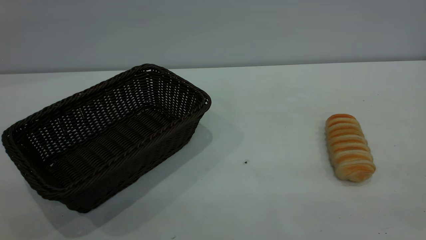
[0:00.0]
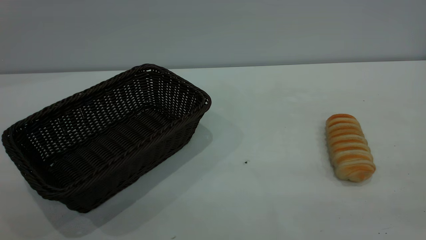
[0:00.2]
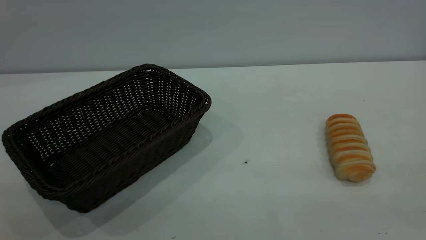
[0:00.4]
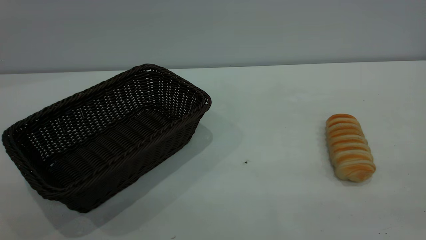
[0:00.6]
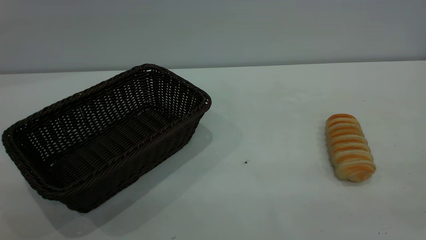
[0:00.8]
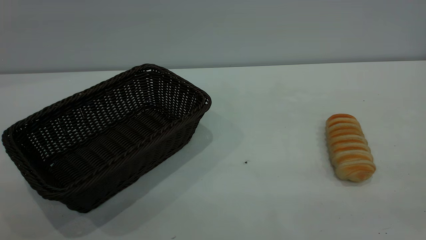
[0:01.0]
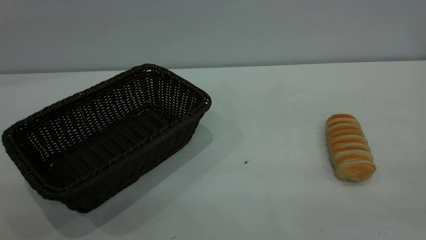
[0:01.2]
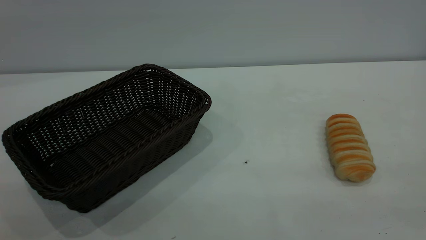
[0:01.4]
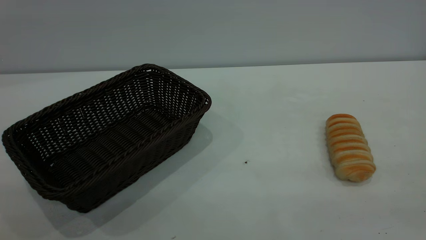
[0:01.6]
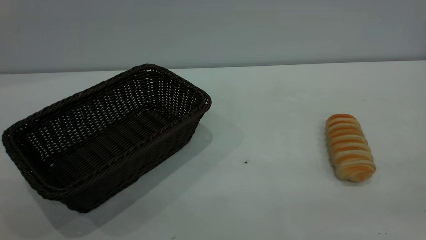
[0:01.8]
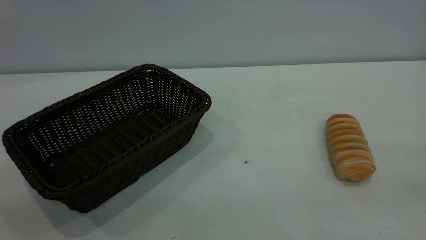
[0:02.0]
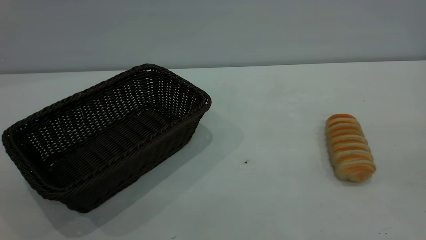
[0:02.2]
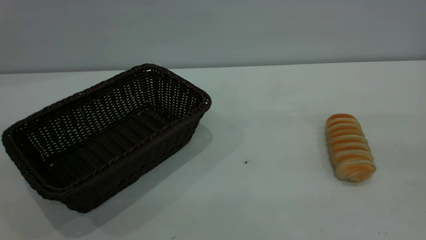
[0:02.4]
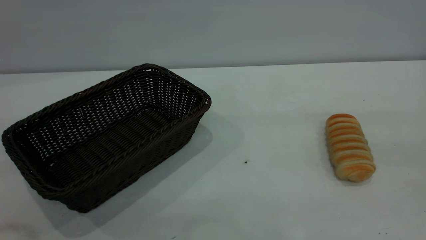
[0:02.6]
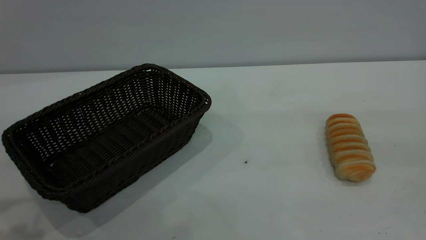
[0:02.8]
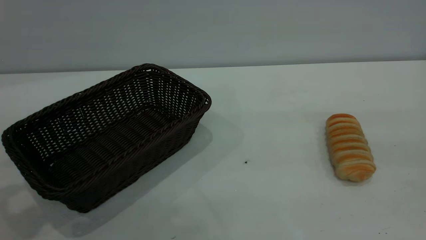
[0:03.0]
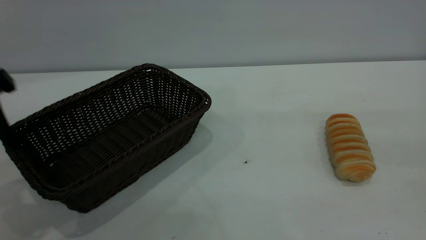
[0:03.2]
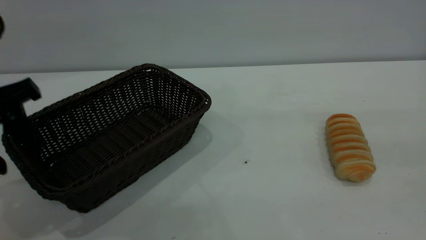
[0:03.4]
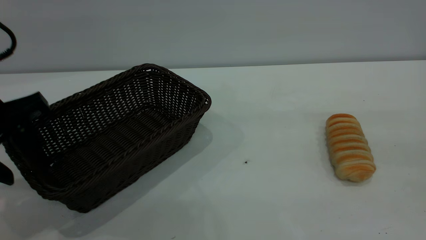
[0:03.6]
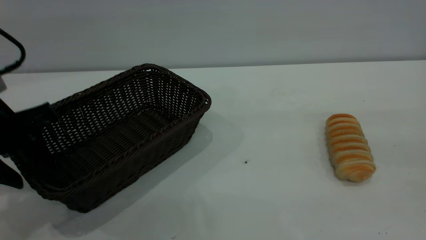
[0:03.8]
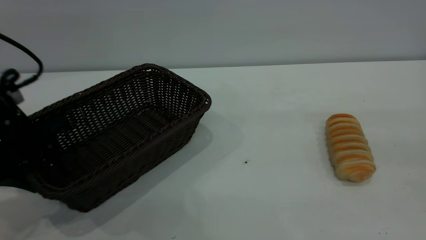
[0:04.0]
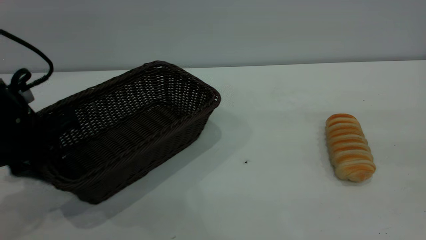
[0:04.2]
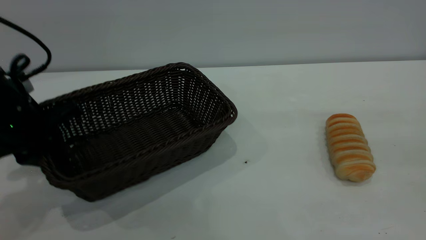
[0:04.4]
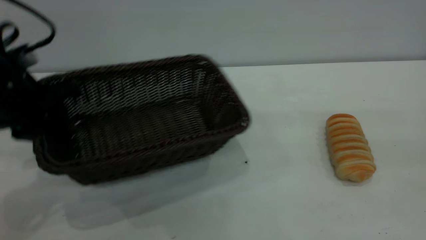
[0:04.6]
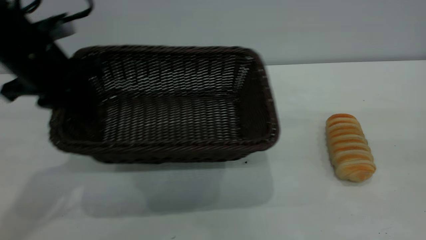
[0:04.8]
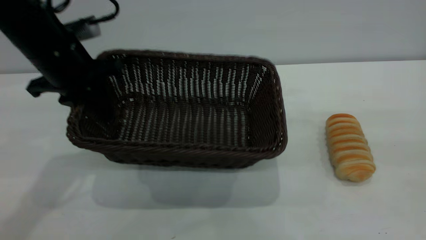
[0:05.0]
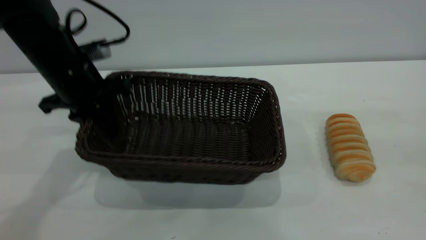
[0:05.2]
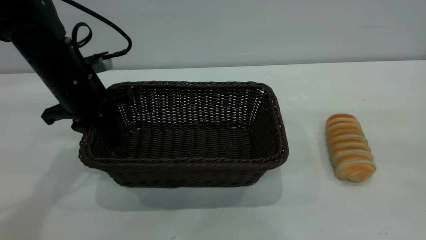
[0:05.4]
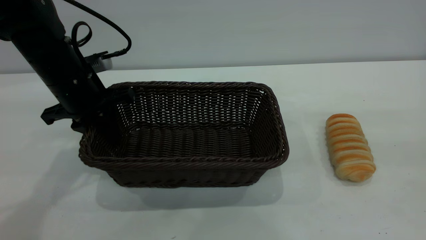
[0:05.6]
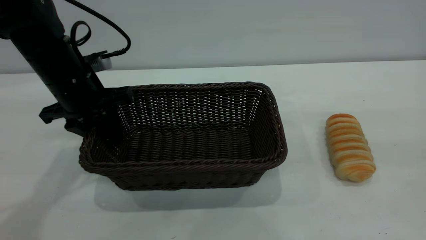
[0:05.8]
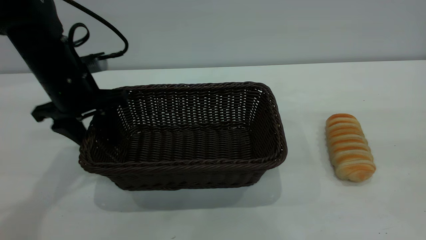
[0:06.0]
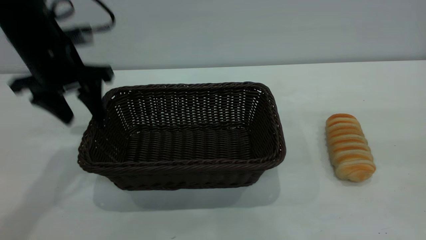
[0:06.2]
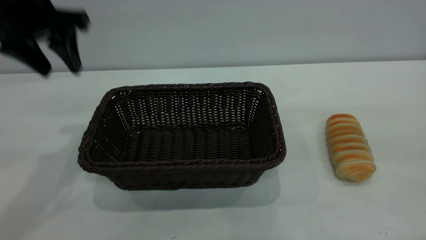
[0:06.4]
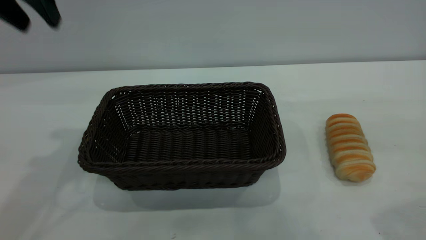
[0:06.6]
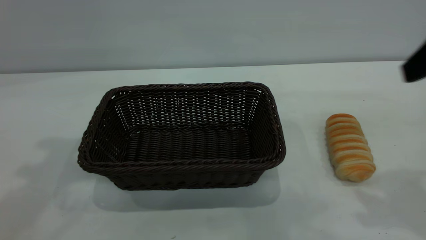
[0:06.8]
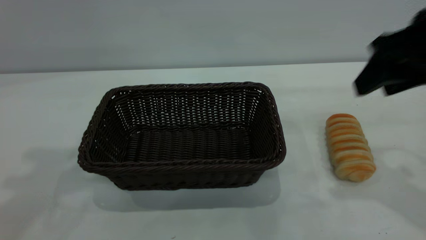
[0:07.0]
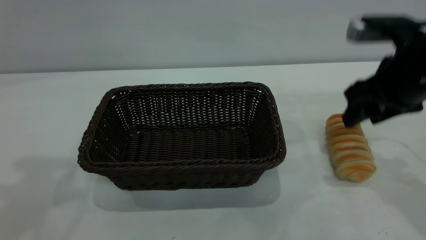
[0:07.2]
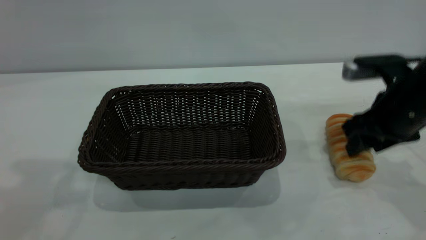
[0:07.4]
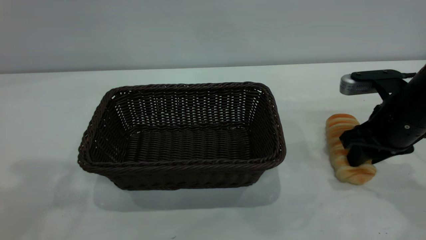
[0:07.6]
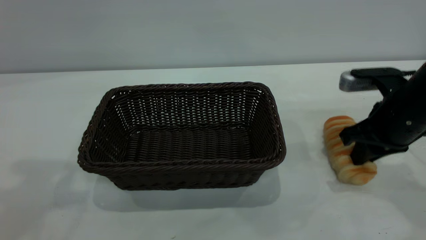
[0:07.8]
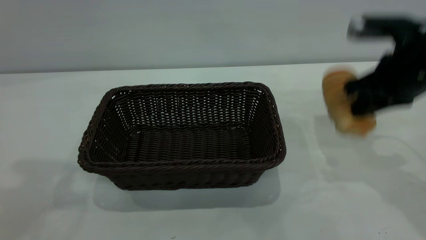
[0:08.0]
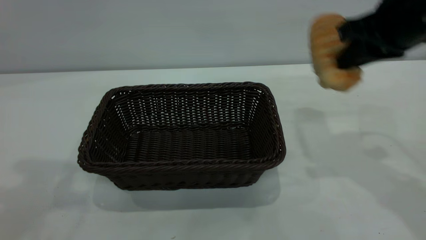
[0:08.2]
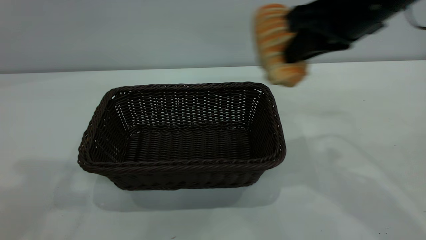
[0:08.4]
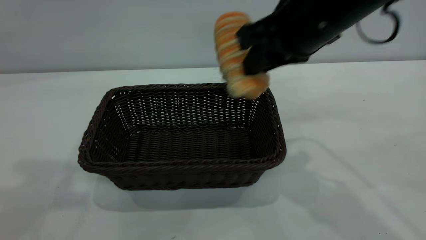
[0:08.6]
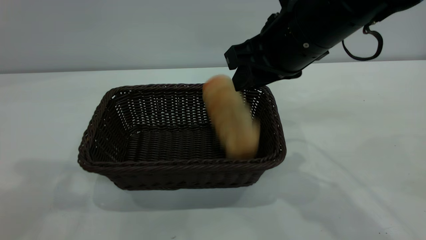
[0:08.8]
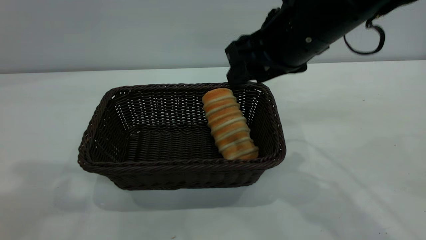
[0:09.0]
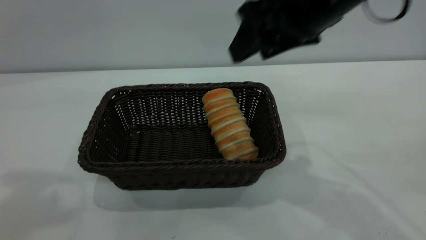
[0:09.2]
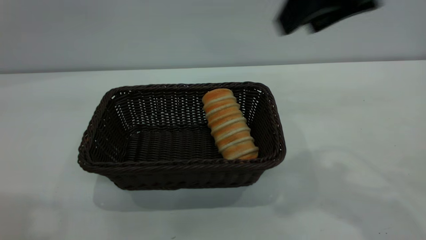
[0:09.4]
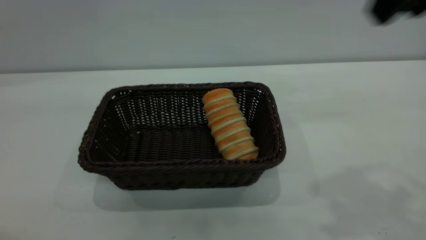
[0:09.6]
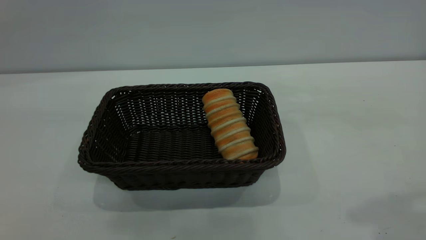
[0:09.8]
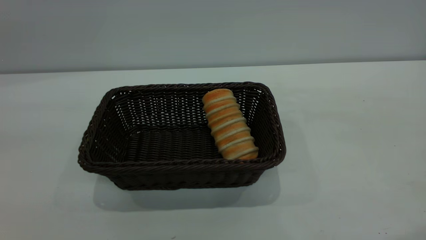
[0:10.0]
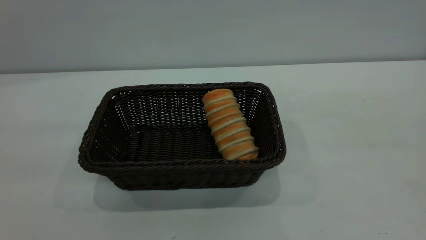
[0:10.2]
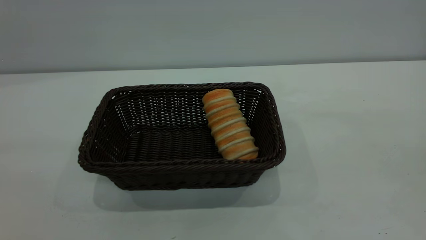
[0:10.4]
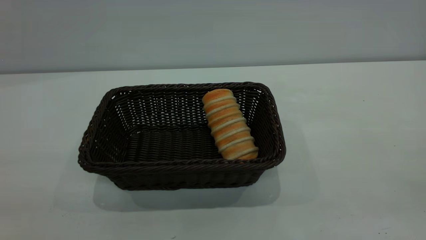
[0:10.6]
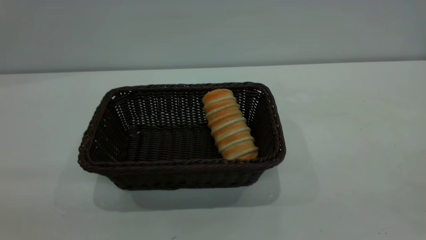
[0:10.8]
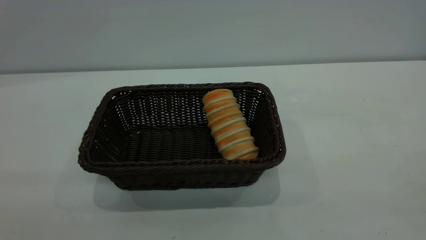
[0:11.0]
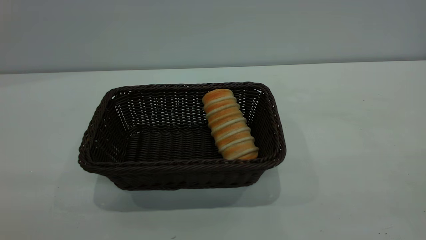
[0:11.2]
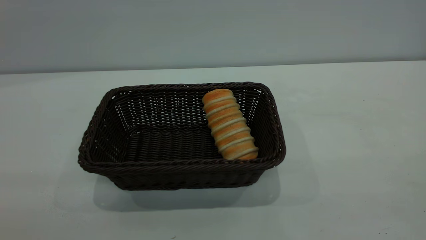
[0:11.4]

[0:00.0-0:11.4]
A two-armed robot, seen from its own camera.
Task of the whole recording: One hand grasps the black basket and places it in the middle of the table, while the other hand picks up the long bread and puts it into the black basket.
Step, 0:00.0 to 0:06.2: Move the basket to the center of view.
Step, 0:08.2 to 0:09.2: place the bread into the basket.
0:00.0 to 0:01.4: Both grippers stay put.
0:02.8 to 0:04.2: The left gripper moves downward and forward, approximately 20 cm, and closes up.
0:04.2 to 0:05.6: The left gripper goes approximately 10 cm forward and to the right.
0:05.6 to 0:07.2: The right gripper heads forward and downward, covering roughly 30 cm. The left gripper goes approximately 30 cm upward and backward, and opens up.
0:07.2 to 0:08.6: The right gripper is displaced to the left and upward by approximately 15 cm, and closes.
0:08.6 to 0:10.0: The right gripper travels upward, backward and to the right by roughly 30 cm, and opens its fingers. The left gripper heads backward, covering some 20 cm.
